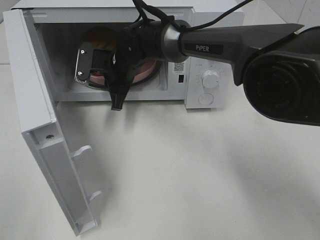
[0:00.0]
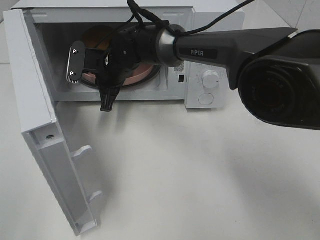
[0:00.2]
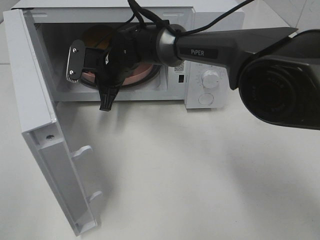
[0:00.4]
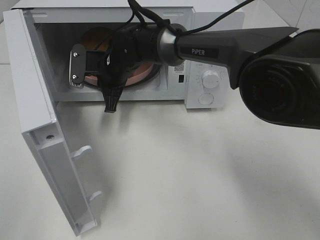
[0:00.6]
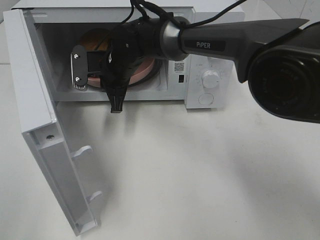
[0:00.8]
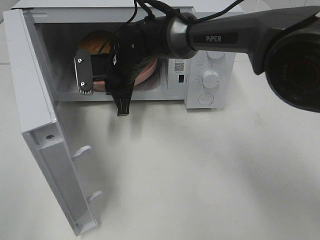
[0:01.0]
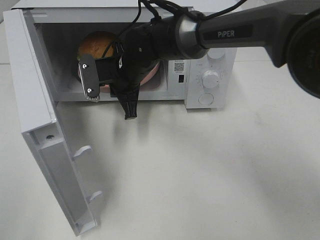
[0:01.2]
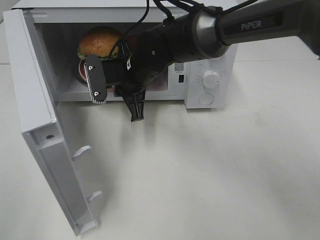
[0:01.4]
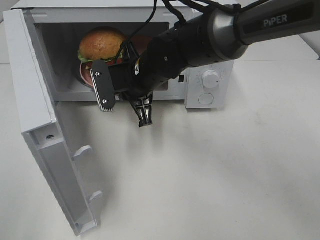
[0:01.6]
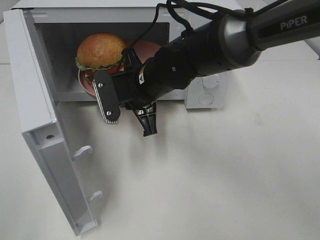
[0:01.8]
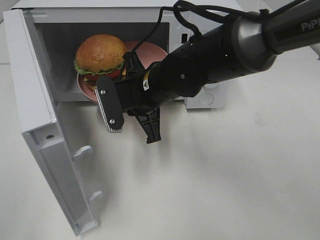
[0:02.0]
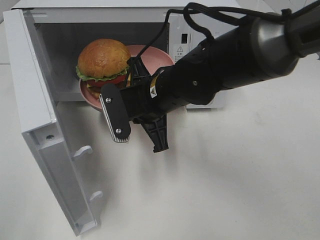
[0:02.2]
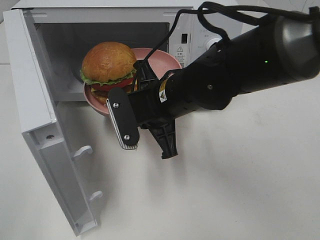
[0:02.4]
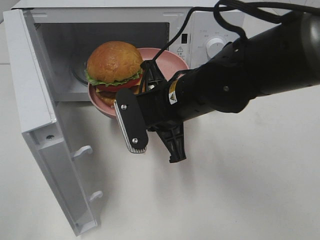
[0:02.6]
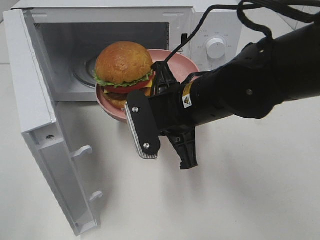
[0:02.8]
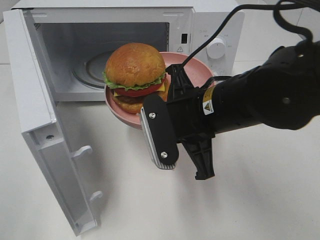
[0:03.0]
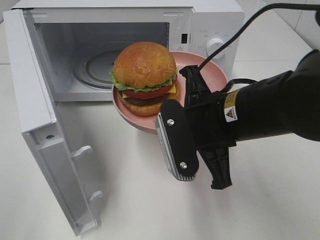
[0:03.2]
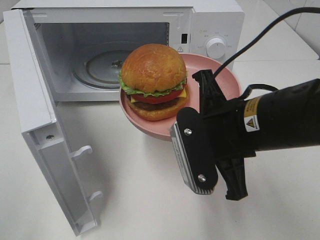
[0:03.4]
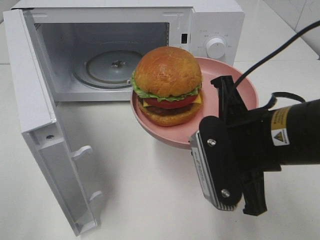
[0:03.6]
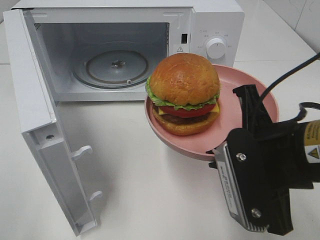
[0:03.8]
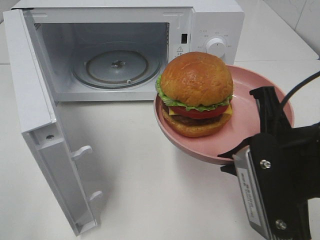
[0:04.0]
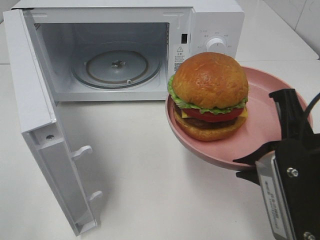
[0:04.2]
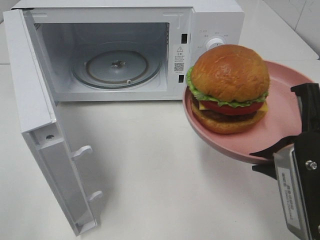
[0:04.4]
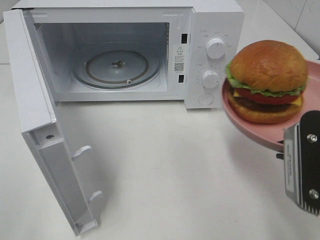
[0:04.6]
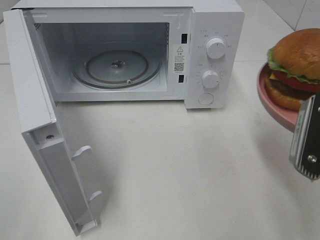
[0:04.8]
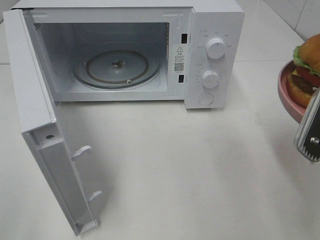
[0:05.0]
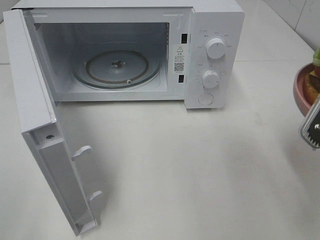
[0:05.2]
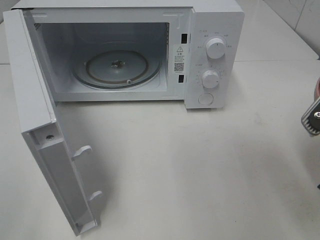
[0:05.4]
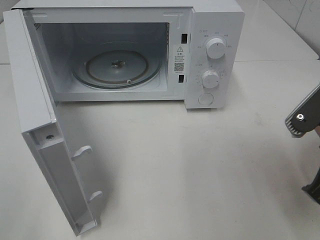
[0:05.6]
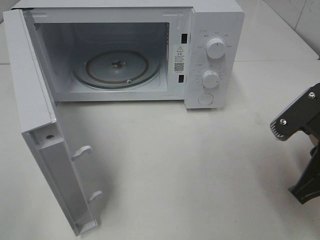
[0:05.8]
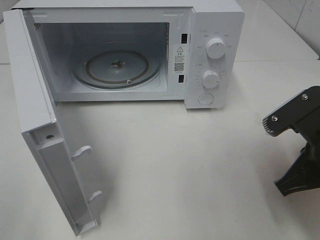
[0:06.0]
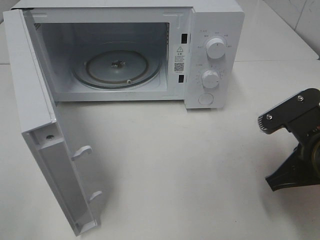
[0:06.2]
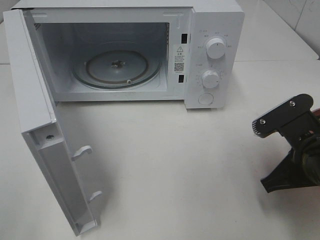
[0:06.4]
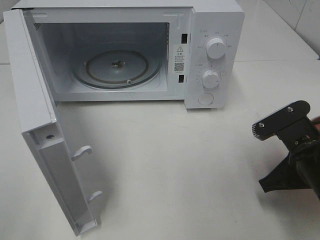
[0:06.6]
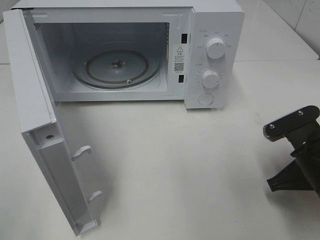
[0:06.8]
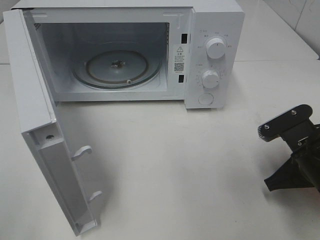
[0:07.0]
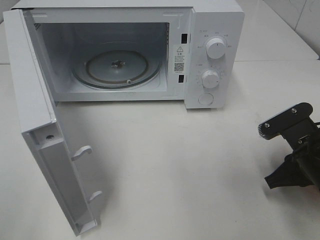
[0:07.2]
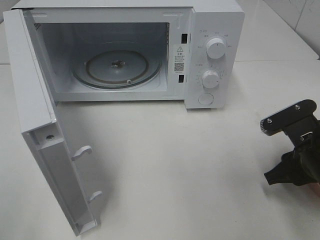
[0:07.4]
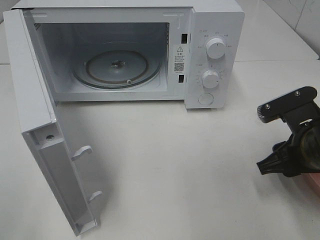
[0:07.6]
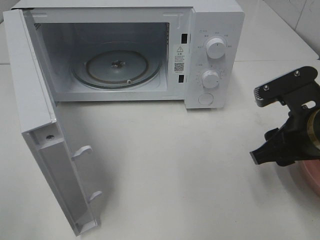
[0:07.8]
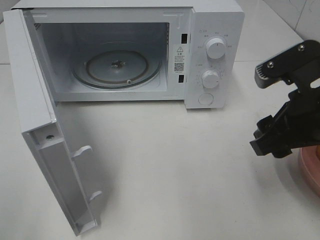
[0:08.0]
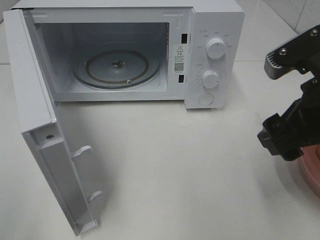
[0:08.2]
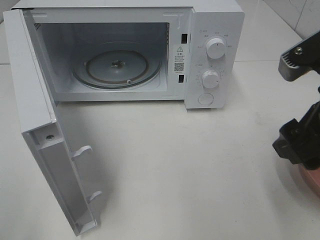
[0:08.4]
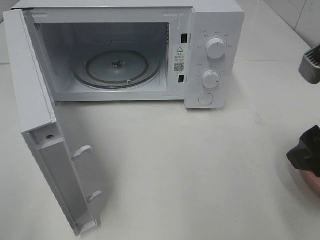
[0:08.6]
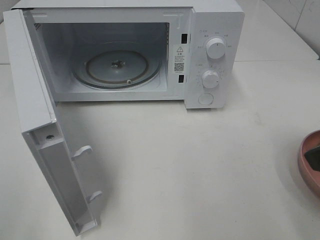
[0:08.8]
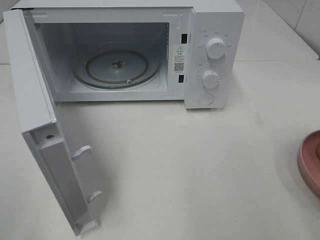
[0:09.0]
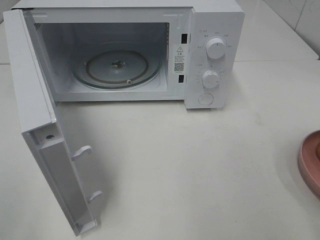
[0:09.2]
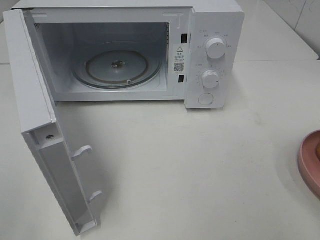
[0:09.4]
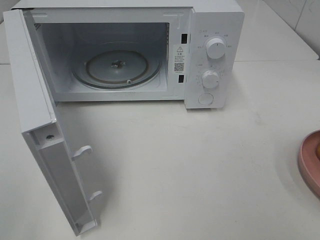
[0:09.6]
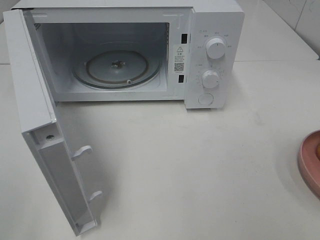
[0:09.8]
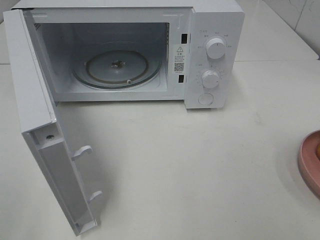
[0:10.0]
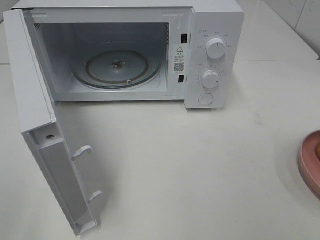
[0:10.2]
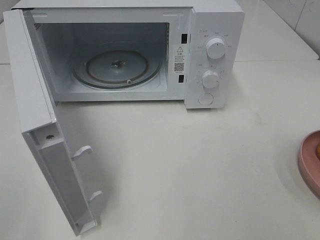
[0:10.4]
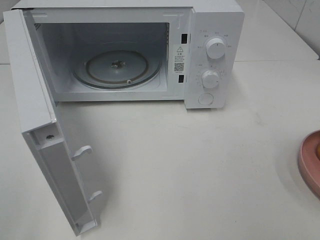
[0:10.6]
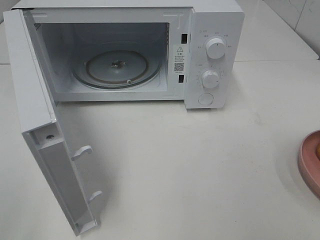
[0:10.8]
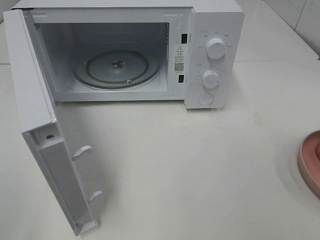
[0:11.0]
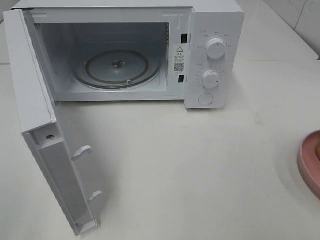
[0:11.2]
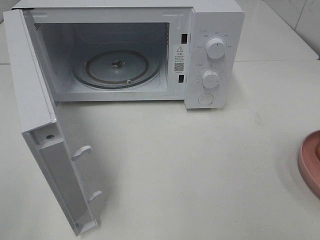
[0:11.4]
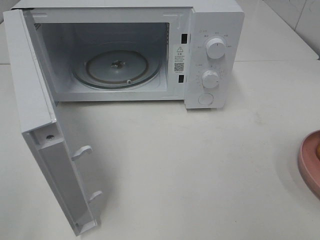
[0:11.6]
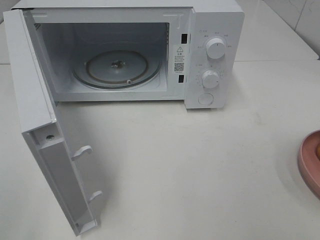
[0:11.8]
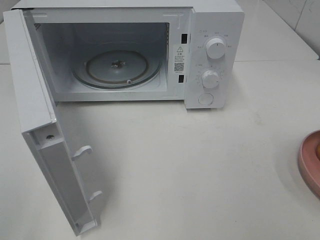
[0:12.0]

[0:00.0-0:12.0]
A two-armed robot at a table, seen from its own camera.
Task of the whole recording: Heat the burger.
Step, 0:00.2 to 0:07.2: Right hand: place the plate on the table.
0:00.0 to 0:01.6: The right gripper is displaced backward and to the right by about 10 cm.
0:01.6 to 0:03.0: The right gripper moves backward and to the right, roughly 15 cm.
0:03.0 to 0:04.4: The right gripper shifts some 15 cm to the right and backward.
0:04.4 to 0:06.0: The right gripper moves downward, about 5 cm.
0:06.0 to 0:07.6: The right gripper opens up.
0:07.6 to 0:09.0: The right gripper heads upward and backward, covering approximately 20 cm.
0:10.4 to 0:12.0: Both grippers stay put.

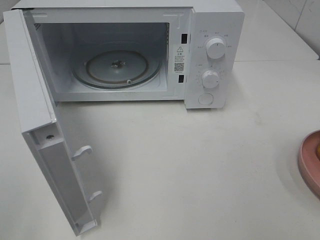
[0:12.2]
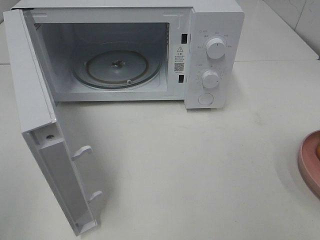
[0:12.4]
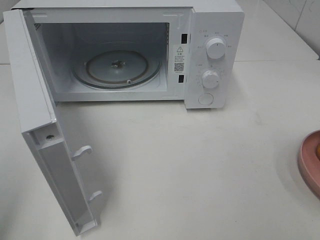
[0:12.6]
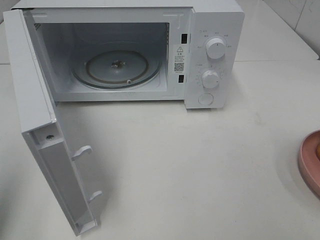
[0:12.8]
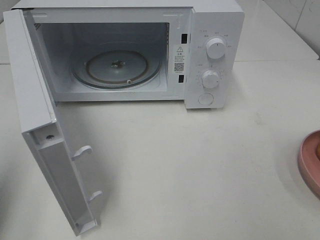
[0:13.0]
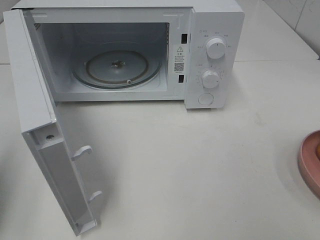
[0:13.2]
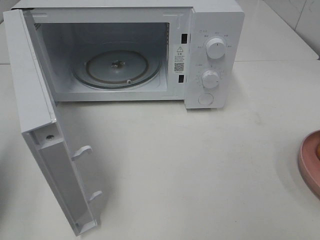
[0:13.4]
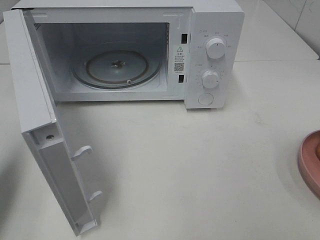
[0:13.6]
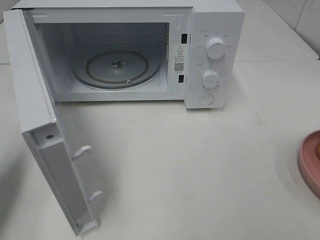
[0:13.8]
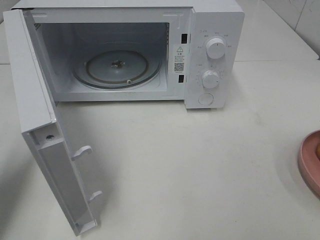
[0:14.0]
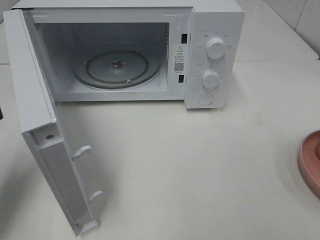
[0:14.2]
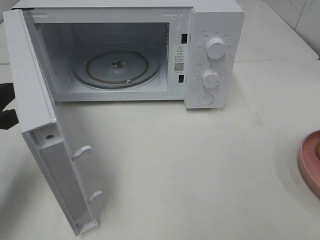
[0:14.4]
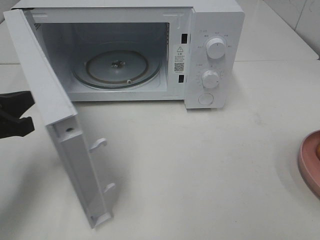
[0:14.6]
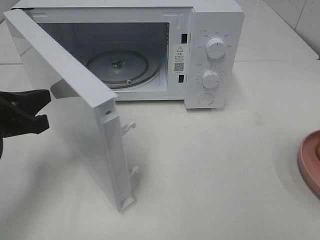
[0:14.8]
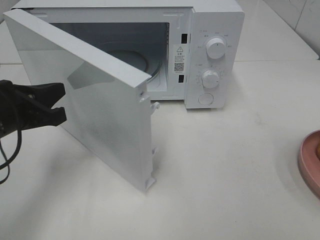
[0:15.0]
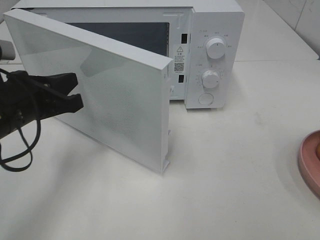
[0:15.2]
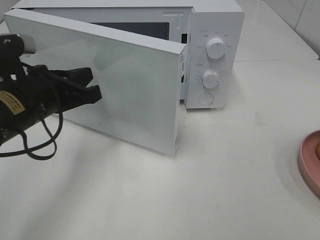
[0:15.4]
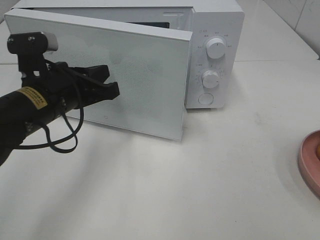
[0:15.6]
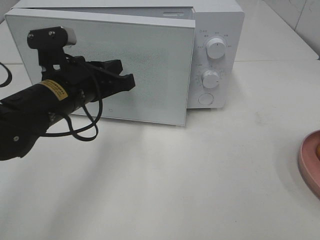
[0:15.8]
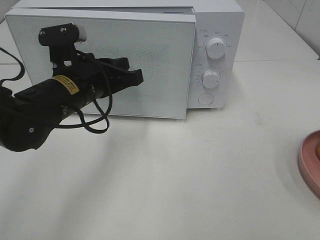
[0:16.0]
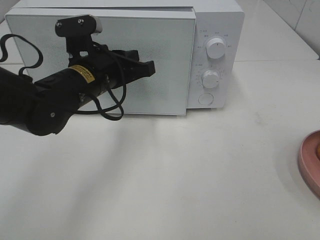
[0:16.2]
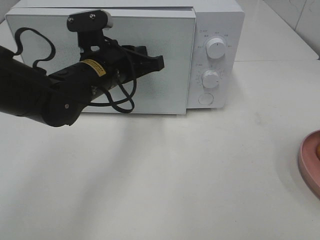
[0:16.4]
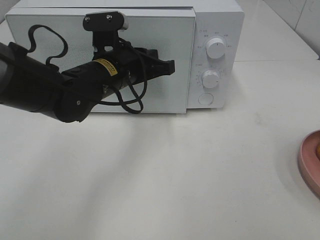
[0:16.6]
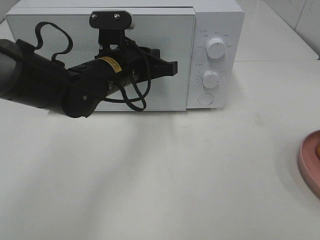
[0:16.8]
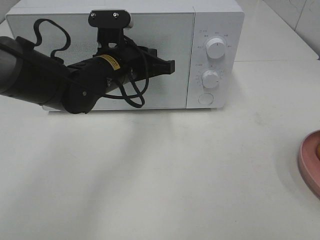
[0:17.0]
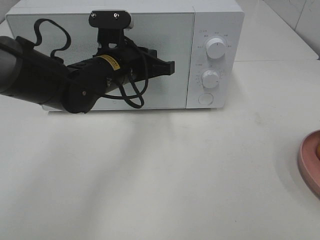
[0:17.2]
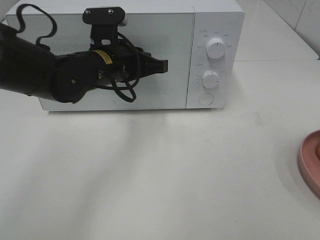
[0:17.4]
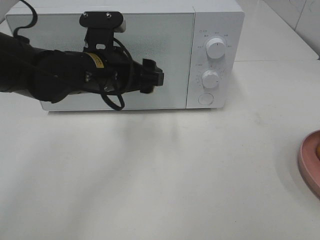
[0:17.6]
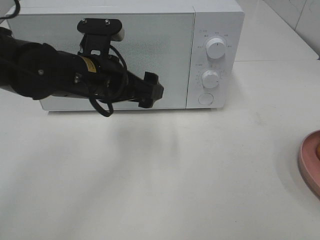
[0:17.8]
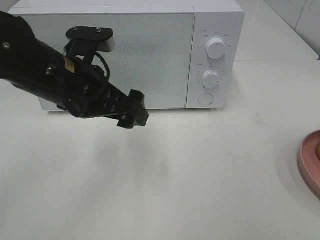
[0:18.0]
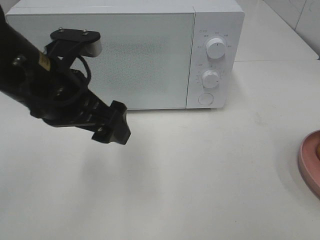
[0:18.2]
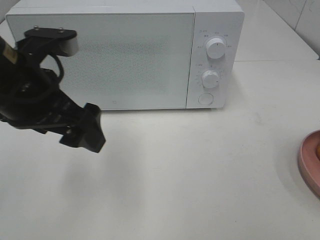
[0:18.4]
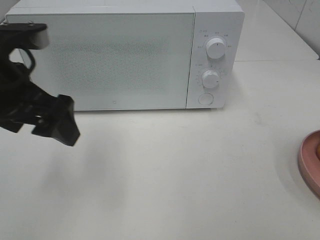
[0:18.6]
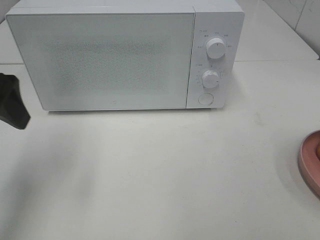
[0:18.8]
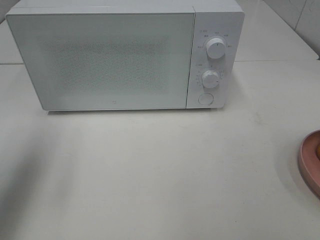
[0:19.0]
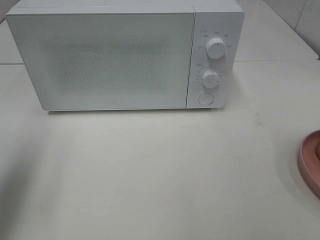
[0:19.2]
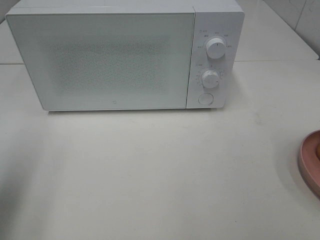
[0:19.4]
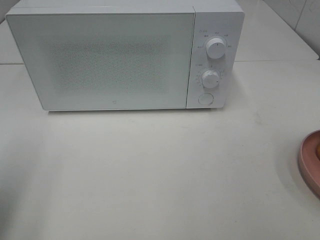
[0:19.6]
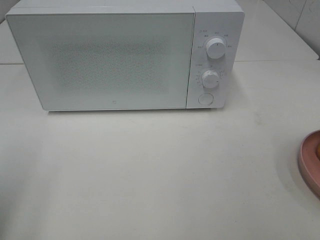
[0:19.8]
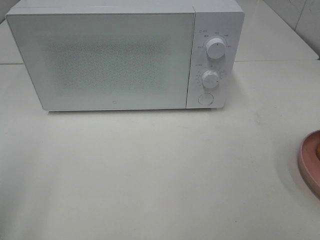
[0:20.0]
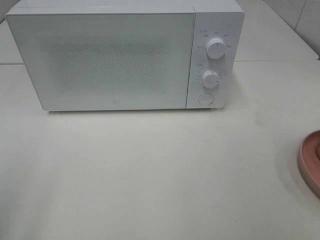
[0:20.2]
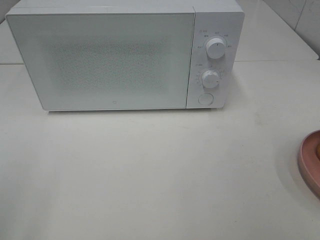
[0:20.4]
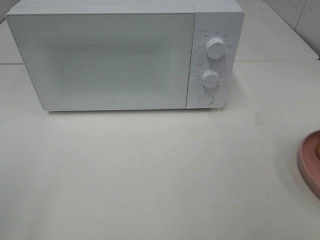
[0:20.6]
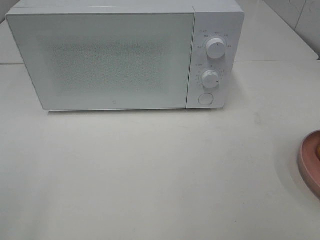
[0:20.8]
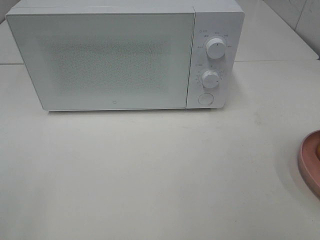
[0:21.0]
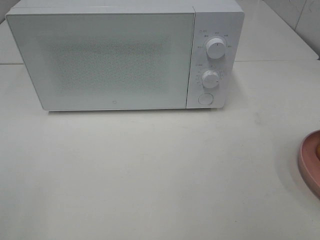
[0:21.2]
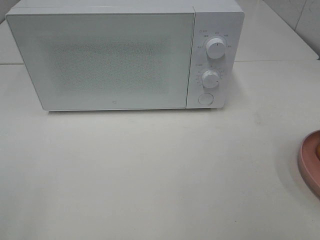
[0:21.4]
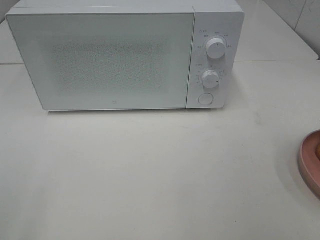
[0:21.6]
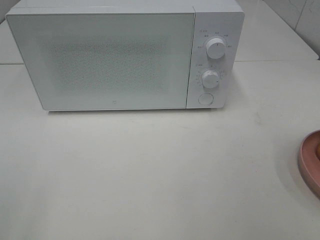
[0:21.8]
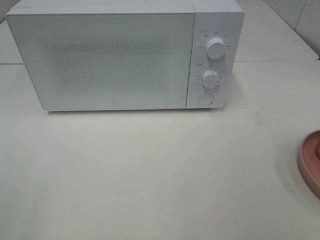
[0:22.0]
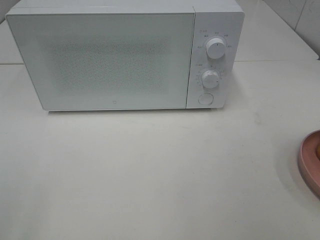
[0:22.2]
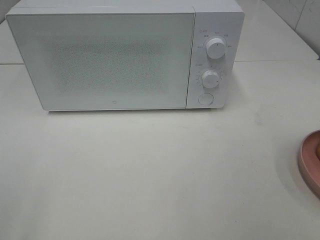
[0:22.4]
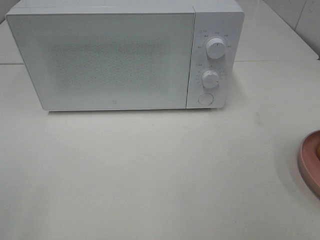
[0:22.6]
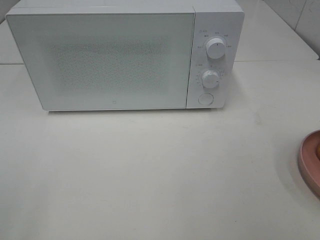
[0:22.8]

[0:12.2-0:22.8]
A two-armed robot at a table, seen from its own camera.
Task of the whole recording: Heat the burger.
Step, 0:12.2 to 0:17.4: Left hand: close the microwave door.
0:12.2 to 0:13.8: The left gripper moves forward and downward, about 20 cm, and closes up.
0:13.8 to 0:15.2: The left gripper shifts some 15 cm to the right and forward.
0:15.2 to 0:16.8: The left gripper moves to the right and forward, about 15 cm.
0:16.8 to 0:18.2: The left gripper travels backward, to the left and upward by some 15 cm, and opens.
0:18.2 to 0:19.8: The left gripper heads to the left and backward, covering roughly 20 cm.
0:21.2 to 0:22.8: The two grippers keep their place.
